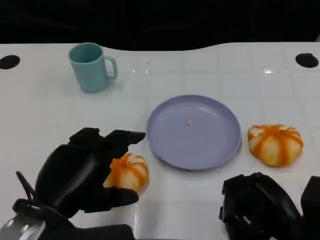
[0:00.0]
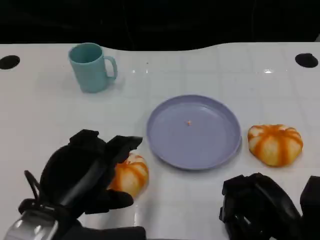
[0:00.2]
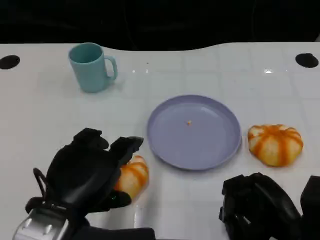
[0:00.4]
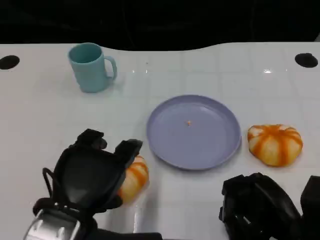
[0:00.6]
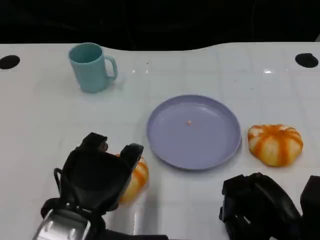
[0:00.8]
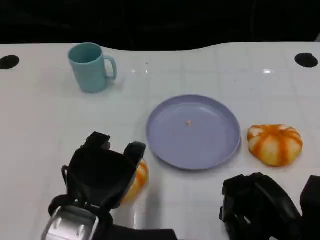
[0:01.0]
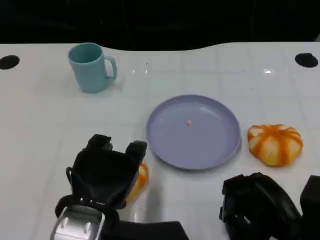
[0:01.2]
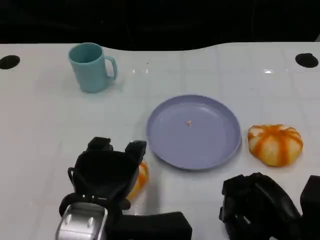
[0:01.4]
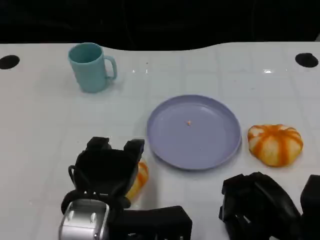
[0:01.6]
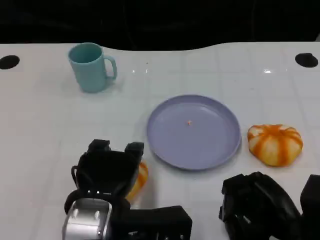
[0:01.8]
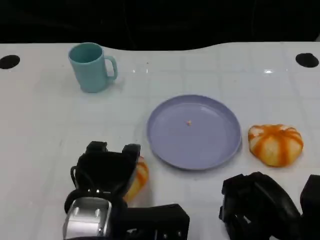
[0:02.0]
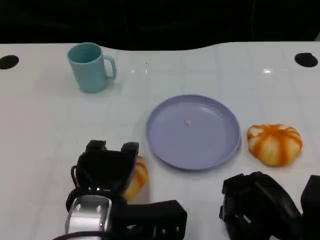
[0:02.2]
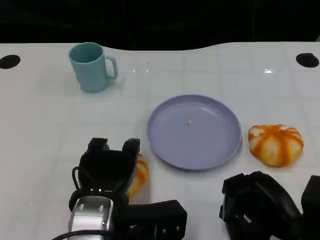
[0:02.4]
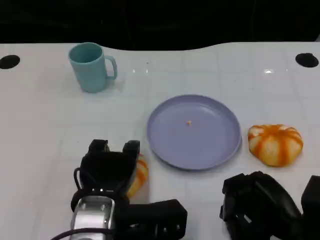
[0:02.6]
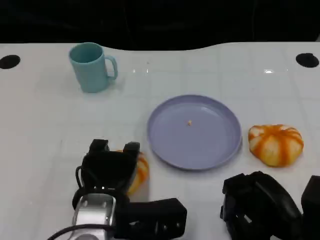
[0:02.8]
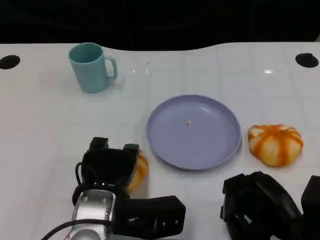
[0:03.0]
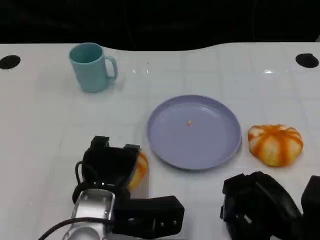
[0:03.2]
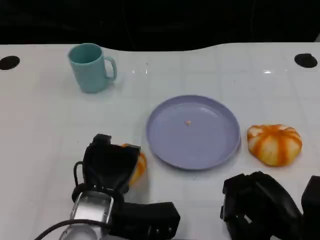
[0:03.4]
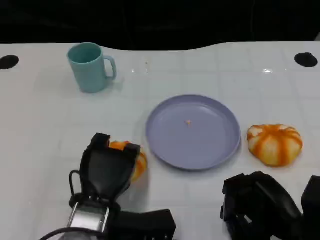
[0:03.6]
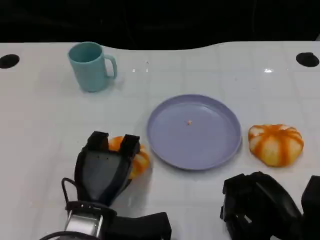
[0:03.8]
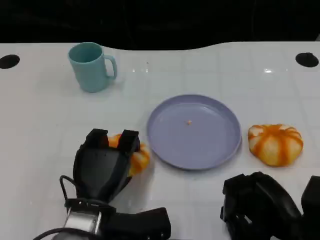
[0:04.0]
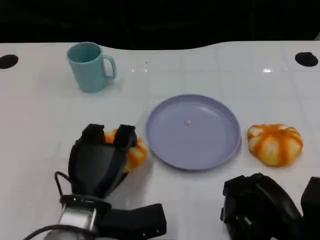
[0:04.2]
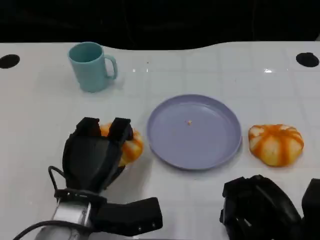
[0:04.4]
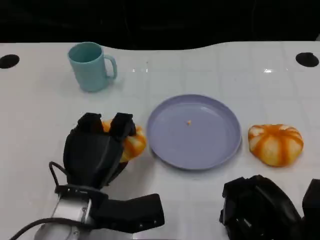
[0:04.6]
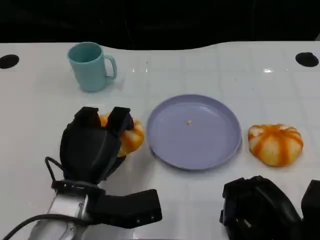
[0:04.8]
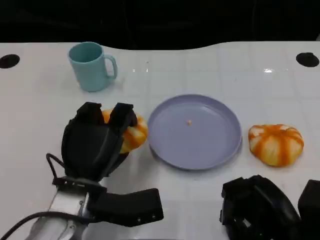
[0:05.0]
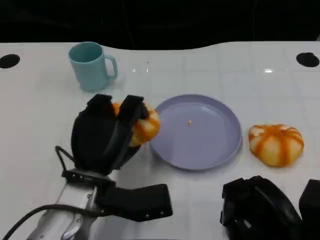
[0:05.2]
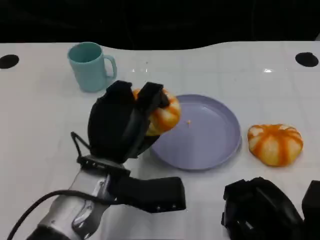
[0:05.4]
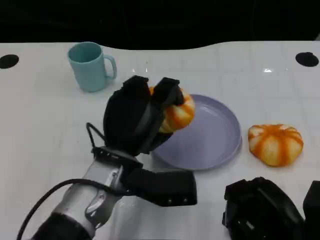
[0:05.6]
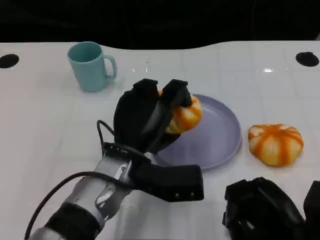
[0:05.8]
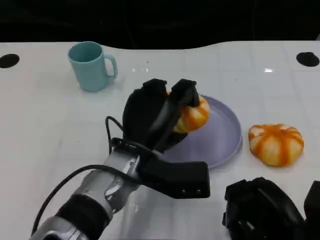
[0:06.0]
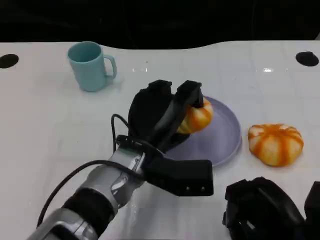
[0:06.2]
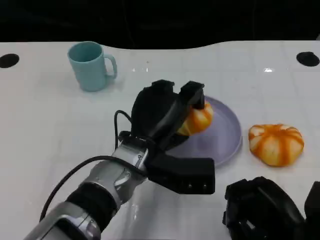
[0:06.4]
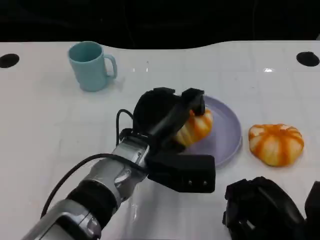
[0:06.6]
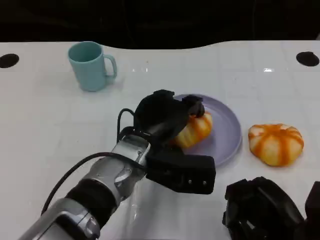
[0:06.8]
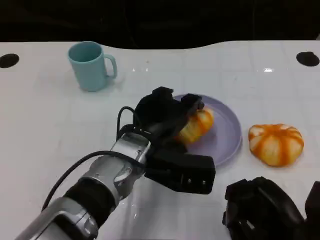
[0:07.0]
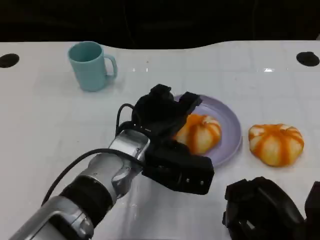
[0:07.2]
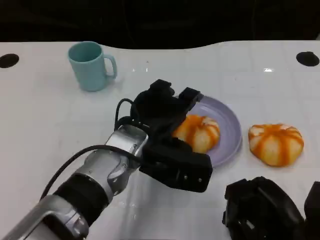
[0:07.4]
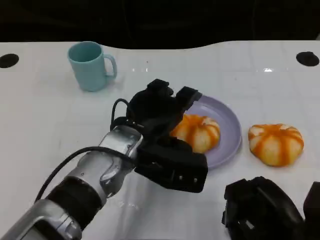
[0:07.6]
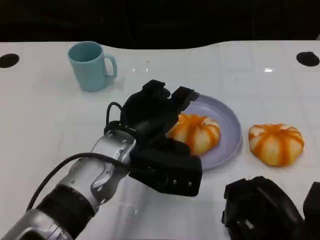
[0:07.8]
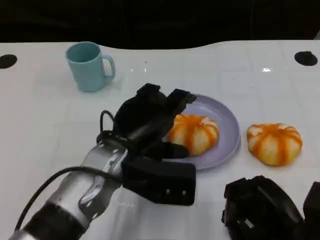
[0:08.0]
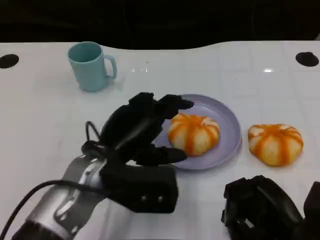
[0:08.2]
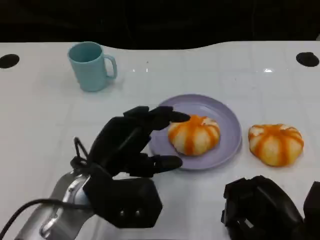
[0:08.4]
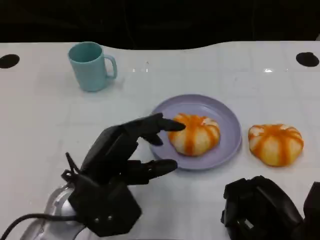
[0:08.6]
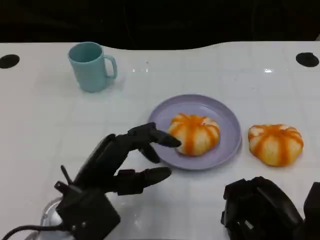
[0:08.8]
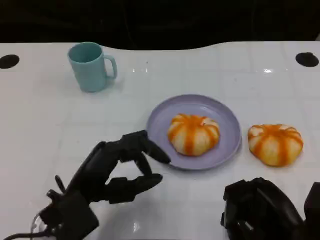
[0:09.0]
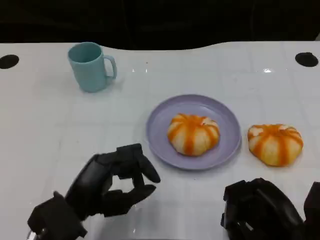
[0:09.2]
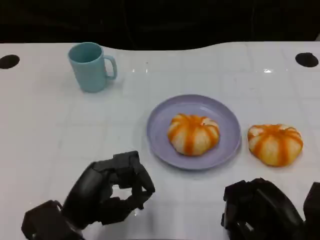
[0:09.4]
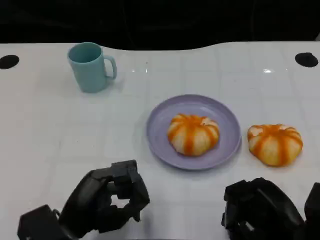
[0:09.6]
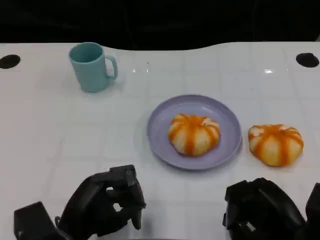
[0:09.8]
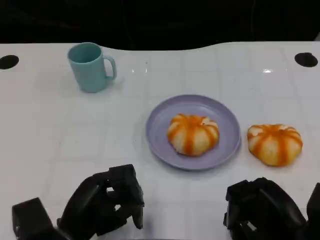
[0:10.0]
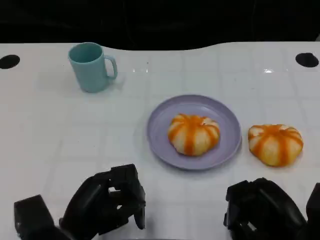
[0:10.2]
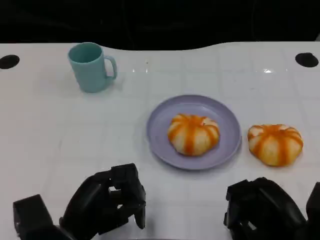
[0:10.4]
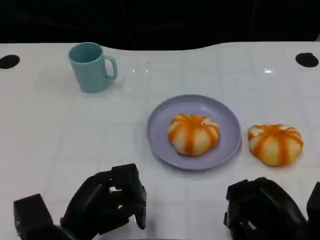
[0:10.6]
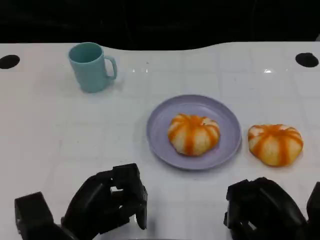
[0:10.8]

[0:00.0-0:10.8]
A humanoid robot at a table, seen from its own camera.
Task of the whole recording: Grasp the bread from the table and place it into the plate.
0:00.0 to 0:01.6: The left hand goes approximately 5 cm to the right.
0:01.6 to 0:03.0: The left hand ends up roughly 5 cm from where it was.
0:04.6 to 0:06.2: The left hand shifts approximately 10 cm to the right.
0:07.8 to 0:09.2: The left hand moves to the left, backward and downward, about 15 cm.

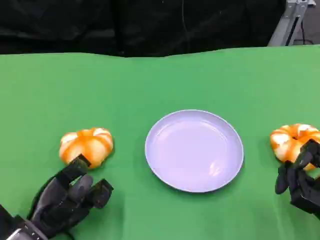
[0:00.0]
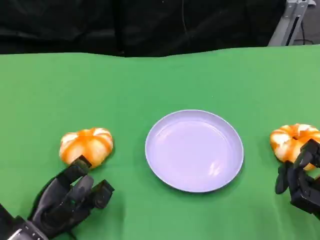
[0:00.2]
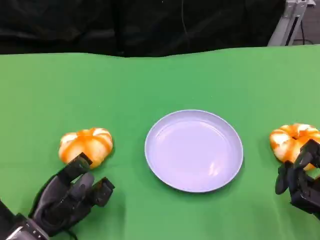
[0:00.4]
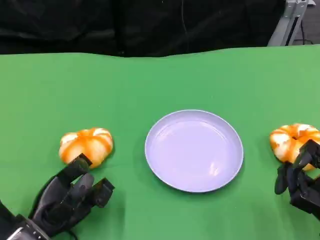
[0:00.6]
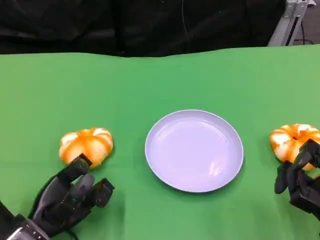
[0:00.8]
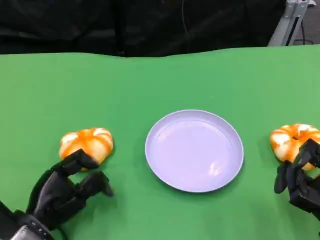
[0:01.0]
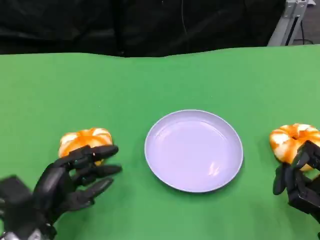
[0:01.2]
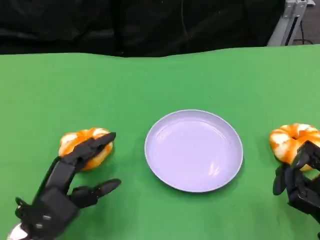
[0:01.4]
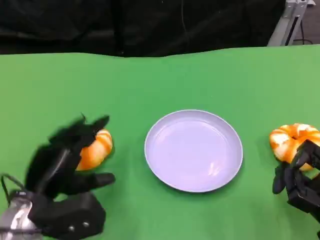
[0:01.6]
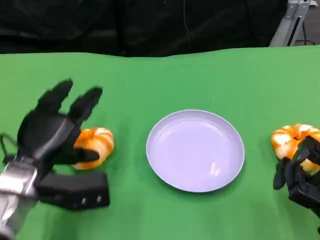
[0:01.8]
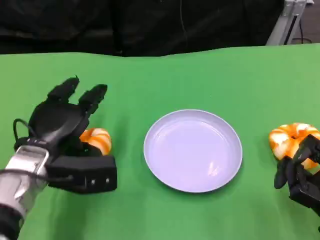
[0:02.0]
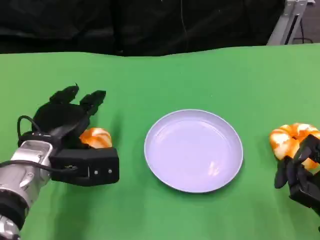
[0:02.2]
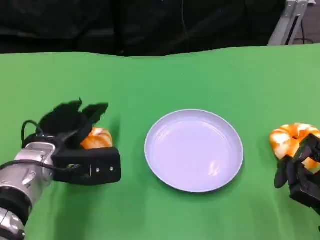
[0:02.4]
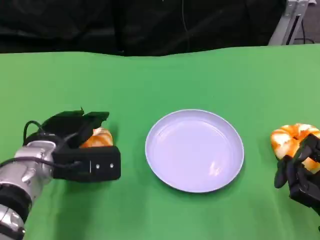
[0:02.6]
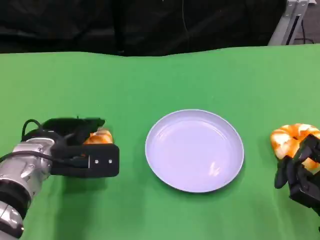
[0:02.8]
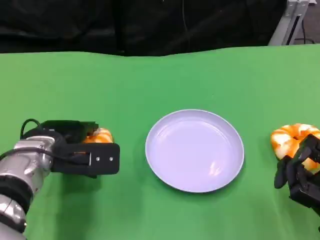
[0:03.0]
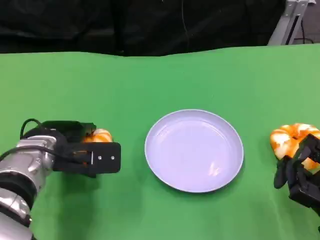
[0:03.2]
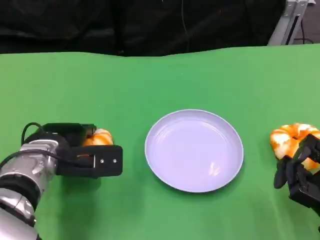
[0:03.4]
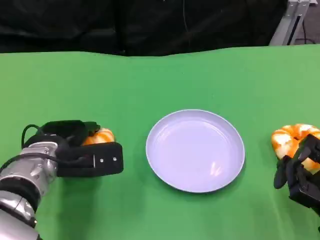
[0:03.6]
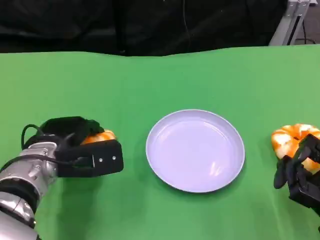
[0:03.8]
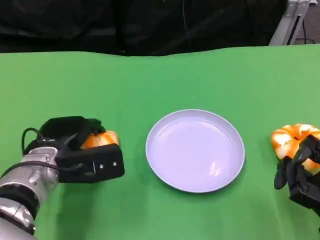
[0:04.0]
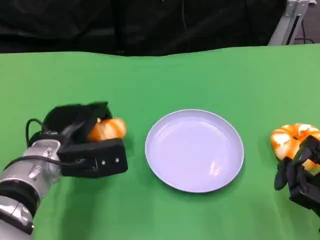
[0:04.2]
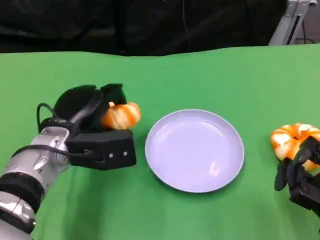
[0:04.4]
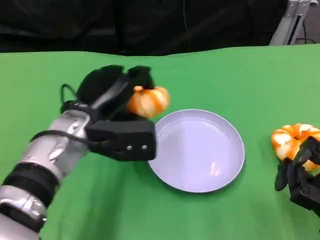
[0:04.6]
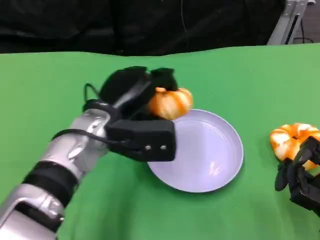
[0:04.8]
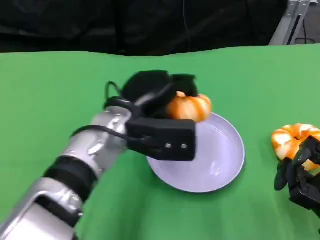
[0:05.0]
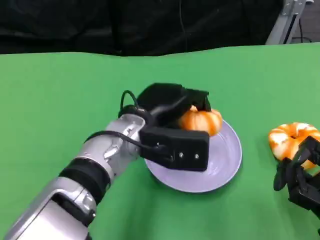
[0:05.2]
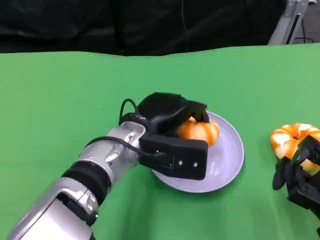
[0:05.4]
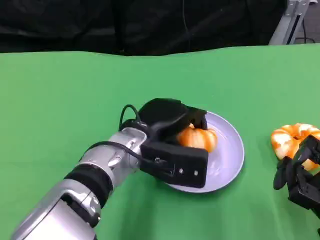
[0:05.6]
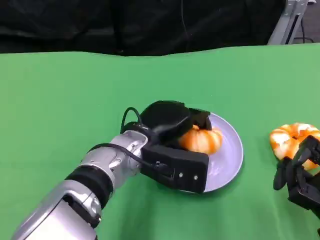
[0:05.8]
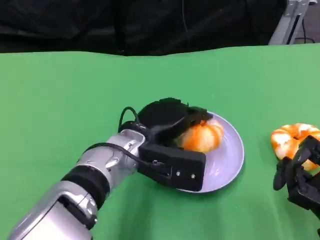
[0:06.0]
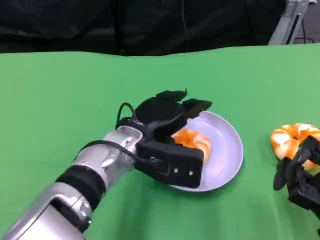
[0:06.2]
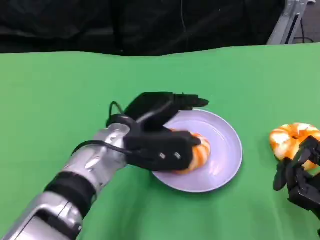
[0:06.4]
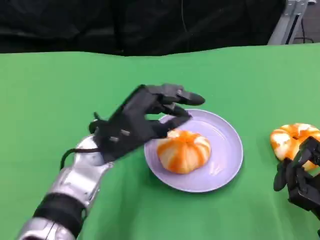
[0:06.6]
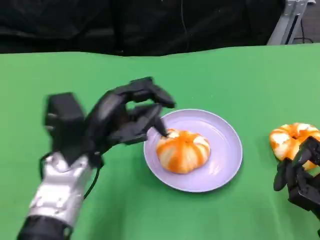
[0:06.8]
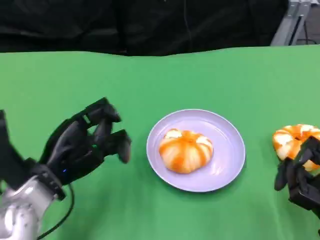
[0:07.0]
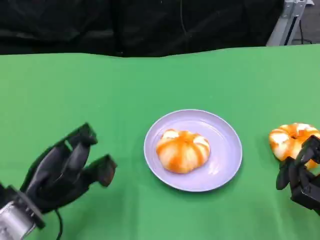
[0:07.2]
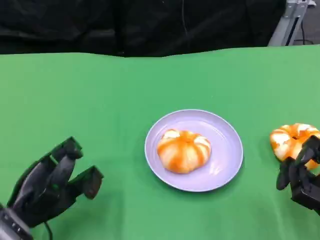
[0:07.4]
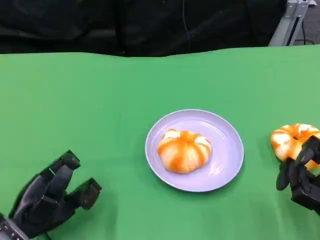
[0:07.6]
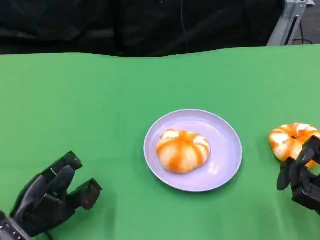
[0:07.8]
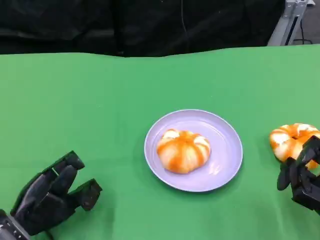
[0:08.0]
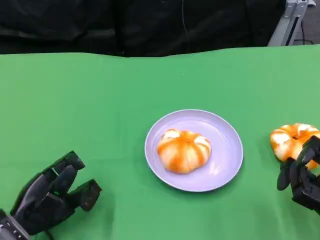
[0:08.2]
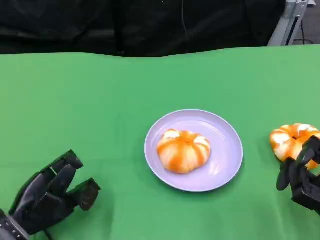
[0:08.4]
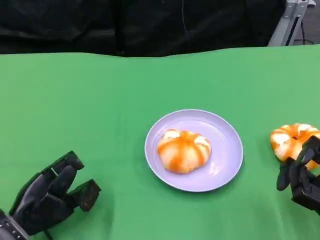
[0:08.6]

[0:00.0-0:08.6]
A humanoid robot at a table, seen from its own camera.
Task of the whole recording: Grasp the bread from the table and place it into the plate.
0:01.4 to 0:02.8: The left hand moves forward, about 10 cm.
0:04.4 to 0:05.8: The left hand travels to the right by roughly 10 cm.
0:05.8 to 0:07.2: The left hand shifts some 20 cm to the left and backward.
0:07.2 to 0:08.6: The left hand moves downward, some 5 cm.

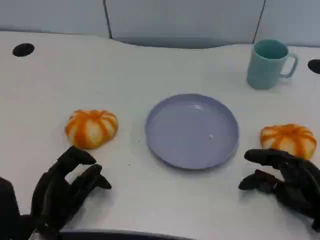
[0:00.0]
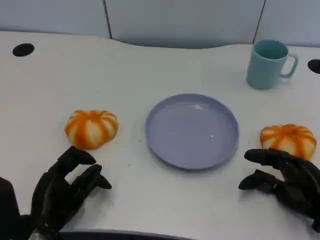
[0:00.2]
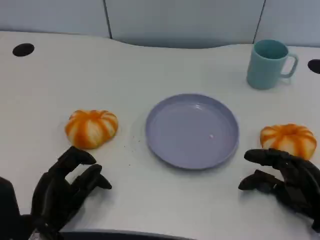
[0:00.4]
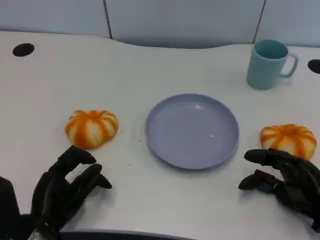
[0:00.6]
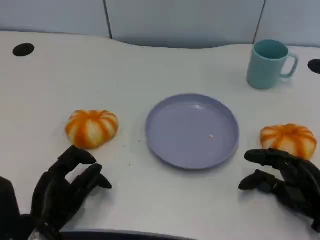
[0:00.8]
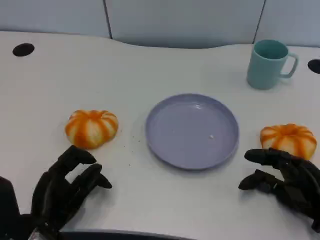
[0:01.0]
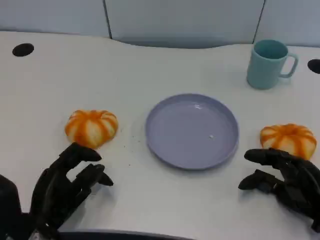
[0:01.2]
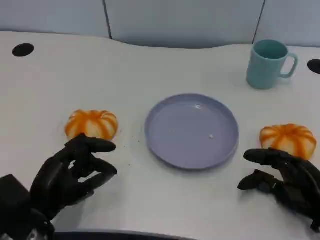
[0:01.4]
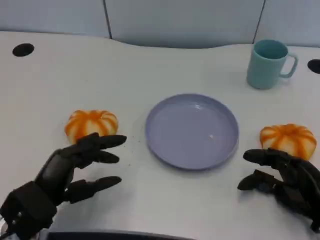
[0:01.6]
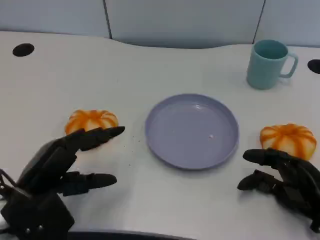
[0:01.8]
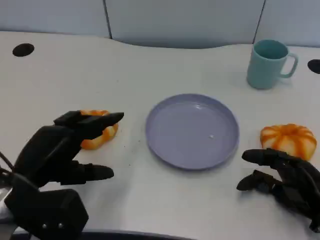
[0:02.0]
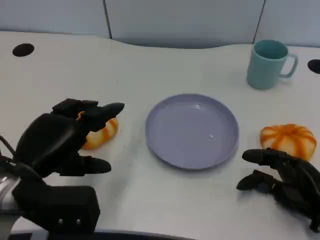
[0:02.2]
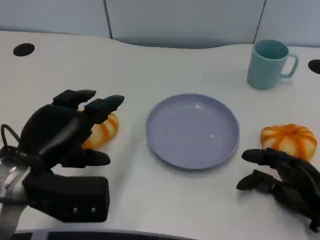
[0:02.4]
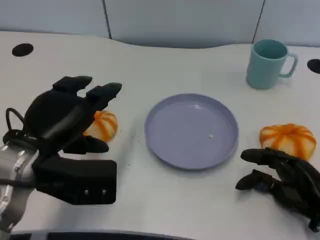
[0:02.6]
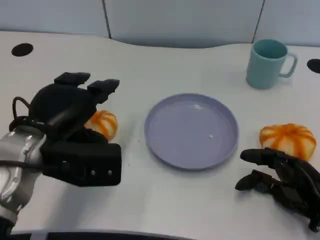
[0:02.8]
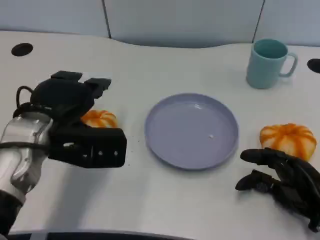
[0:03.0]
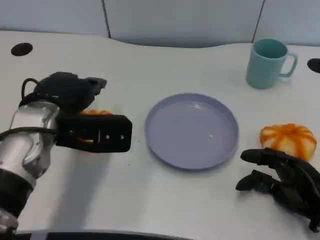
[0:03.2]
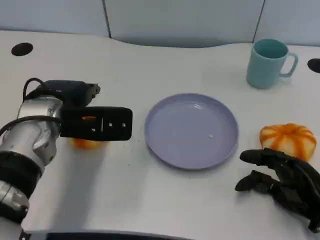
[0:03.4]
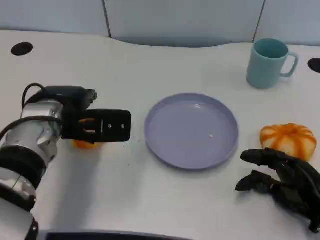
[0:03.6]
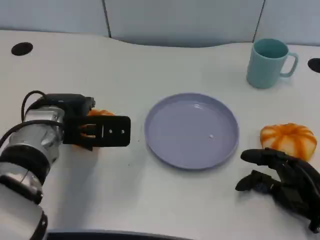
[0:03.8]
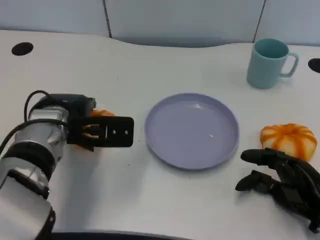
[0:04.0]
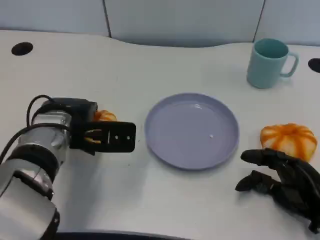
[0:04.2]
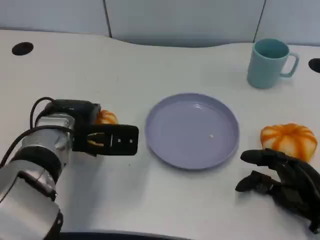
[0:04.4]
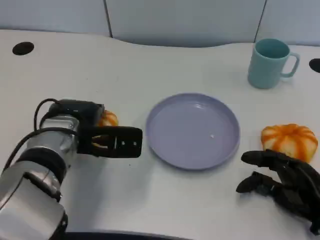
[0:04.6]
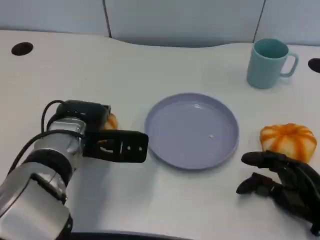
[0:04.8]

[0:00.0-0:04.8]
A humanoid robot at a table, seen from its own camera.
Task of the whole recording: Grasp the bread from the table and place it into the plate.
0:00.0 to 0:01.6: The left hand moves about 5 cm.
0:01.6 to 0:03.2: The left hand heads forward and upward, covering approximately 15 cm.
0:03.2 to 0:04.8: The left hand moves downward, approximately 5 cm.
